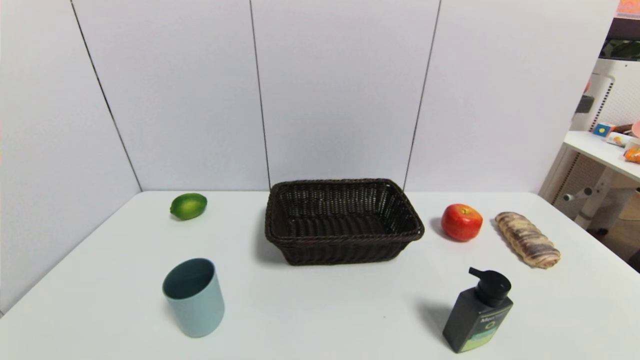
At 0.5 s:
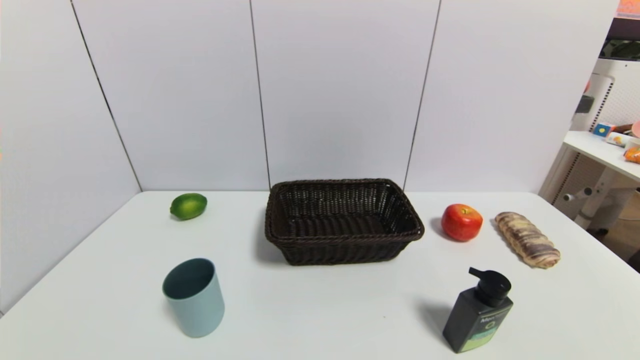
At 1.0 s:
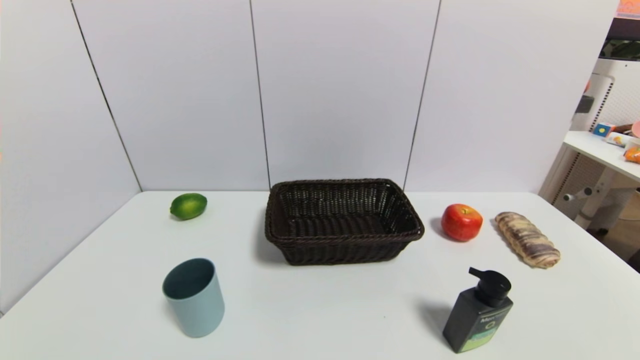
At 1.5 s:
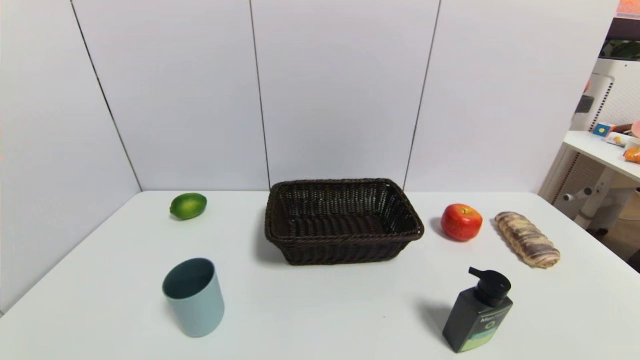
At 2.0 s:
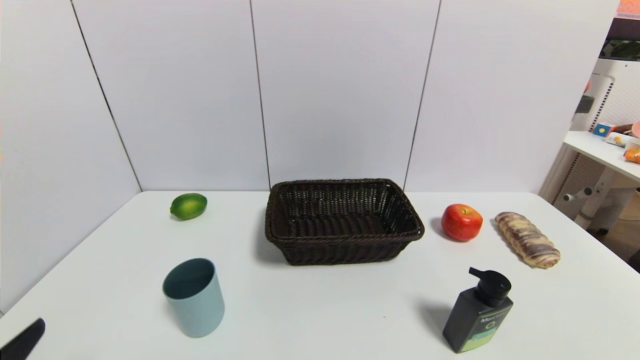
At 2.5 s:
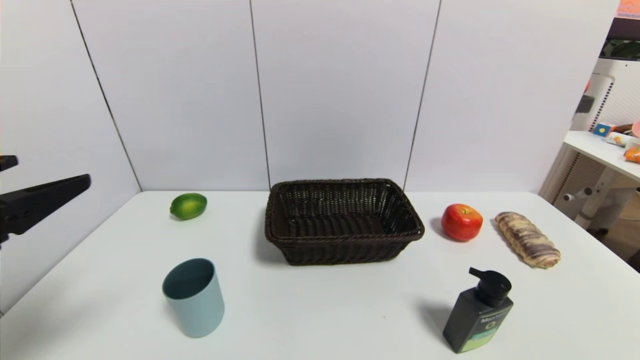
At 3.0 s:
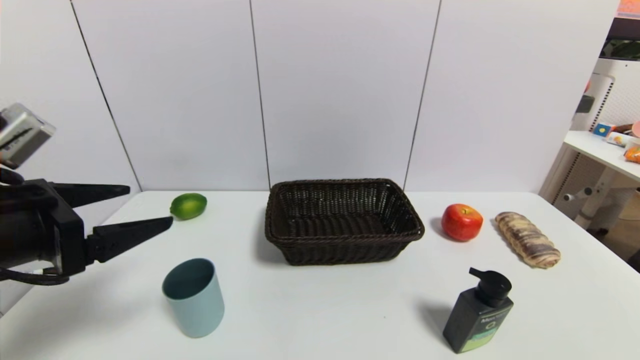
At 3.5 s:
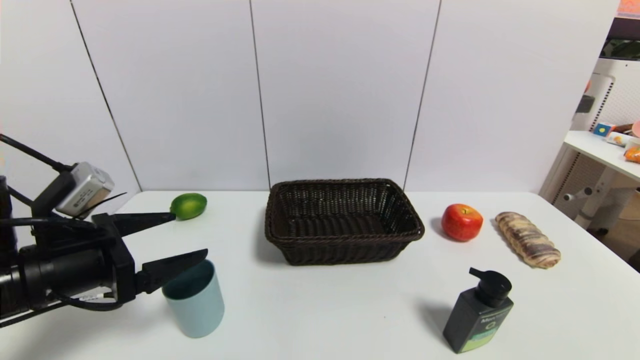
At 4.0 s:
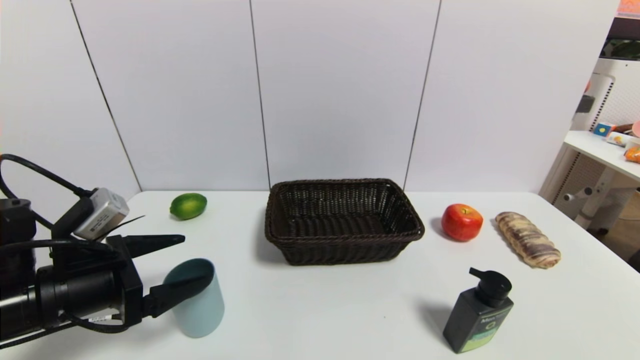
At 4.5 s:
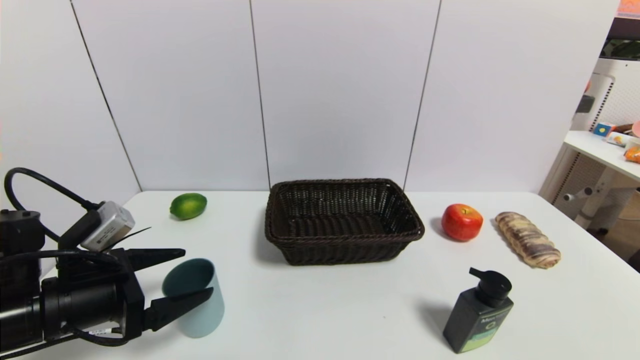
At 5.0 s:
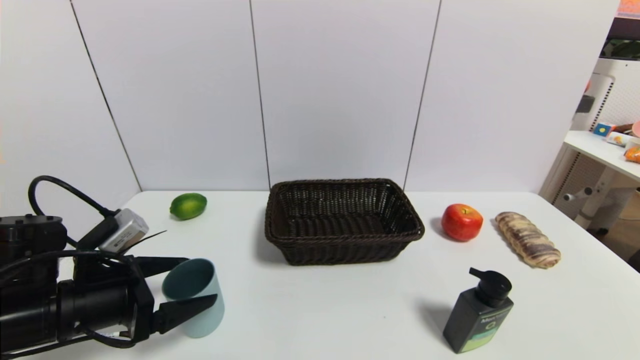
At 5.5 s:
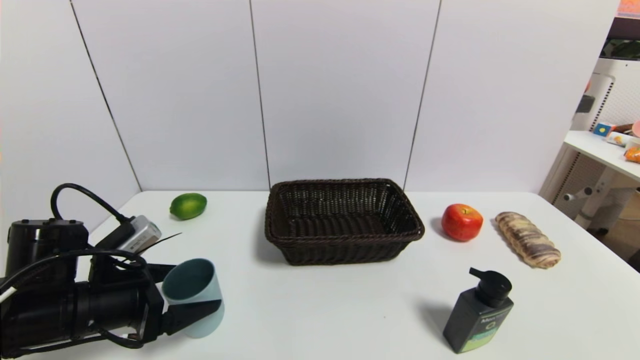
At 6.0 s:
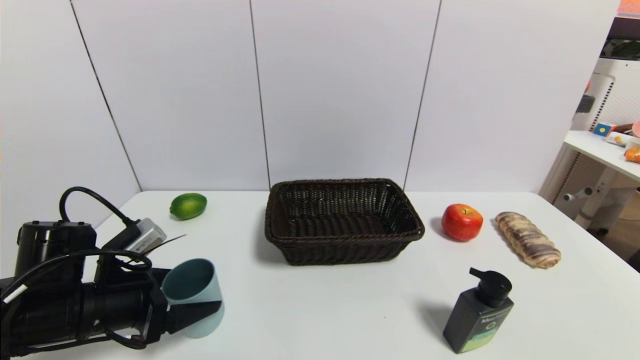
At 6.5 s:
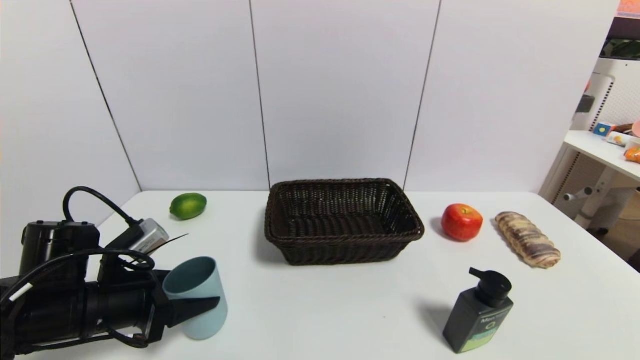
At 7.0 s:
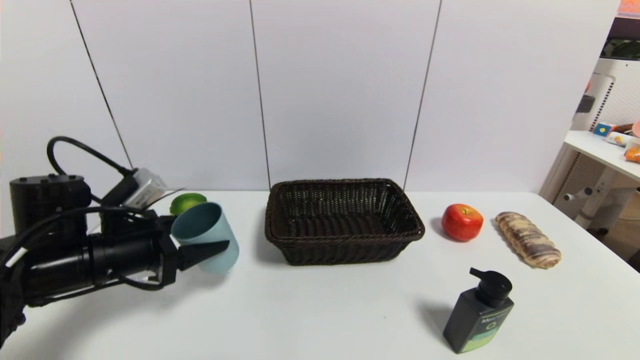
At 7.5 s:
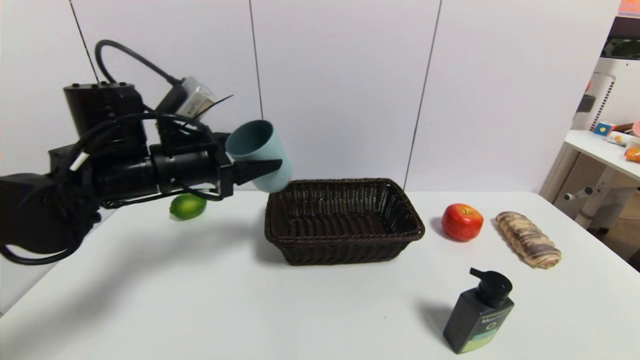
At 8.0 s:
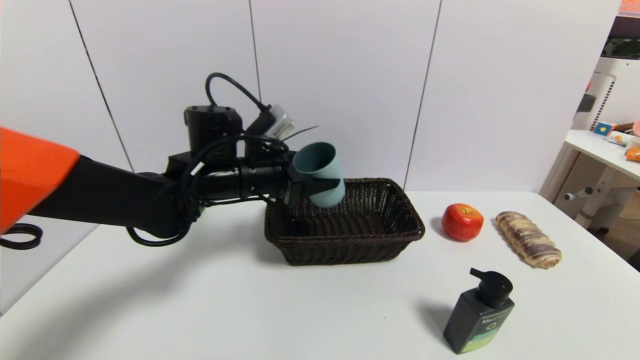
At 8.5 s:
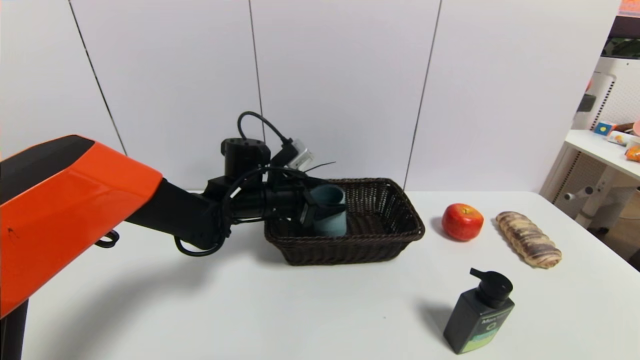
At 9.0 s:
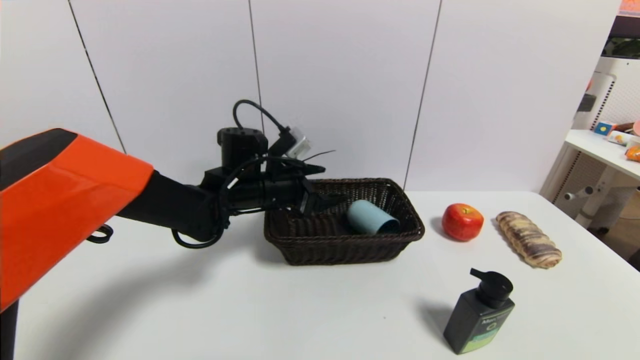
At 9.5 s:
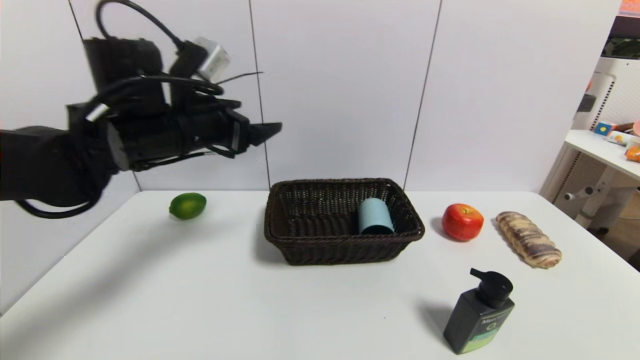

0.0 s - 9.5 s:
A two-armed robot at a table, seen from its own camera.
Task of the whole recording: use a gripper to pick the target object and place on the brown basket.
Step, 0.0 s - 6.0 s: Grasp the blue cup with the left gripper.
Step, 6.5 s - 8.5 s: Place the blue cup into the basket with the left gripper.
2.0 s - 4.0 s: The left gripper goes about 15 cm forward.
4.0 s - 5.5 s: The grippers stay close to where they were, moving slightly.
5.5 s - 7.5 s: The left gripper goes some 20 cm upward, forward and to the right, and closes.
7.5 s - 9.5 s: The left gripper goes downward and returns, roughly 10 cm each way, and opens up.

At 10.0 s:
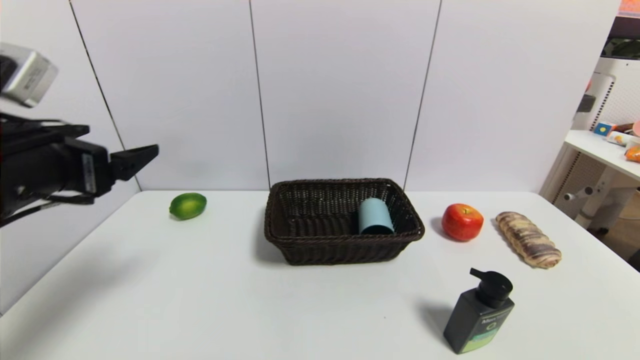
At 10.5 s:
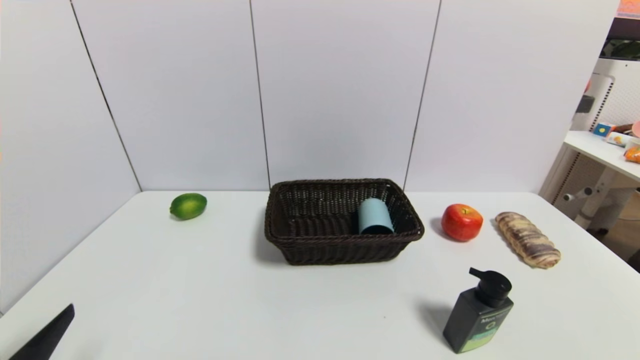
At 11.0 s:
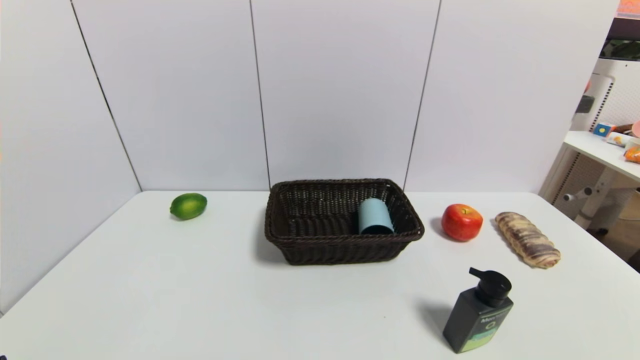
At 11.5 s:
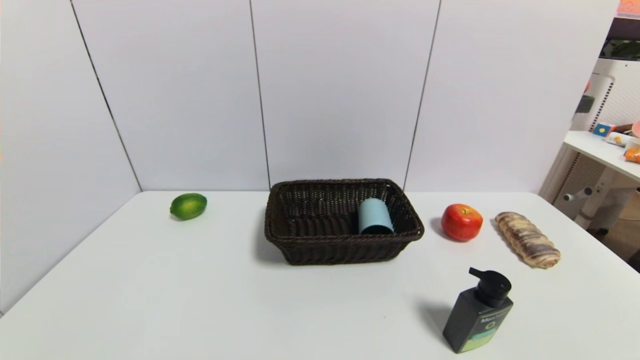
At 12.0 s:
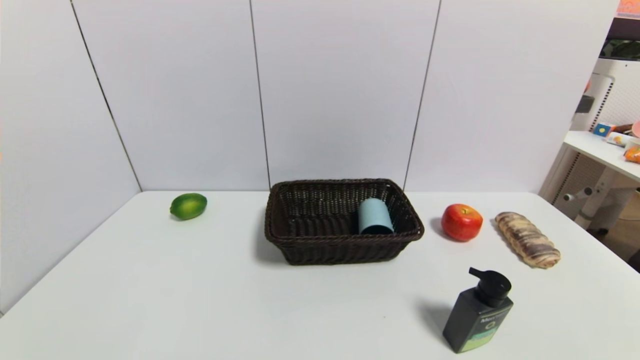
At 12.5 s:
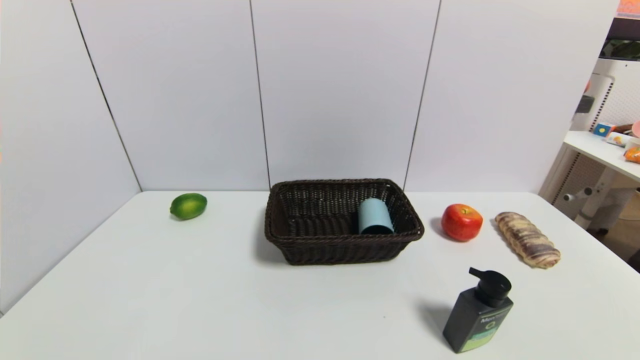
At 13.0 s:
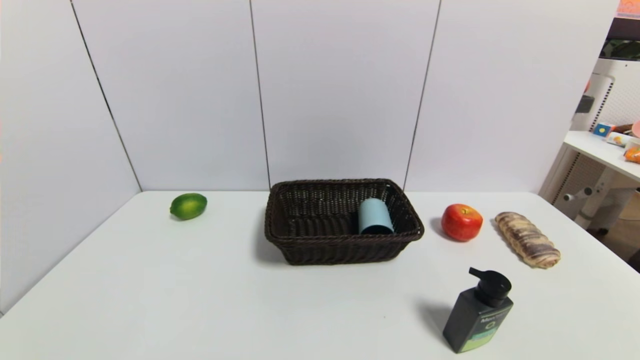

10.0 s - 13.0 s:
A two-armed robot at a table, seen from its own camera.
Task of the whole recording: use a gripper to pick the target object and place on the brown basket.
10.0 s - 11.5 s: The left gripper is displaced downward and backward by about 25 cm.

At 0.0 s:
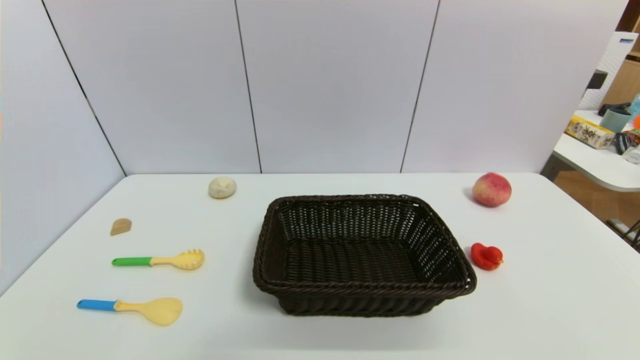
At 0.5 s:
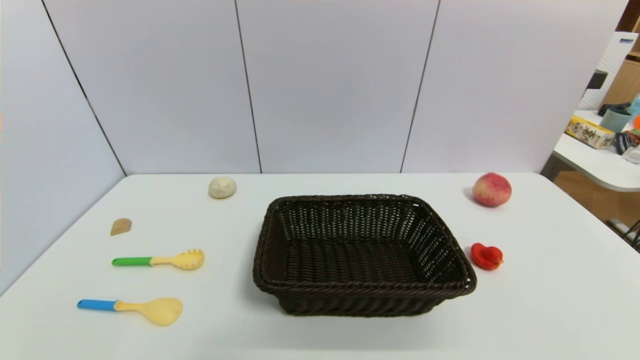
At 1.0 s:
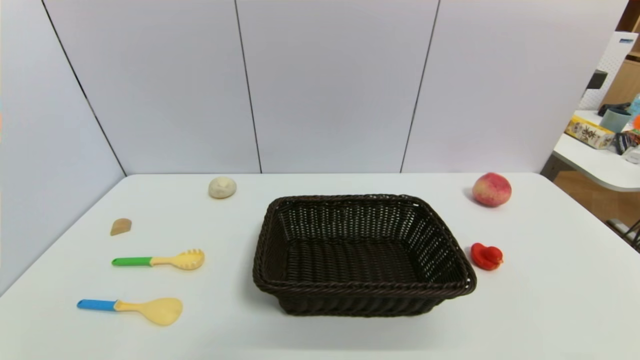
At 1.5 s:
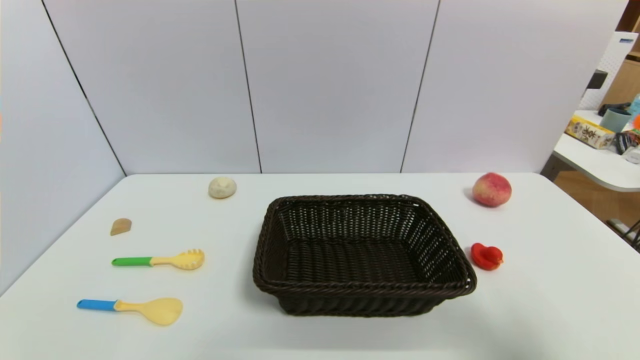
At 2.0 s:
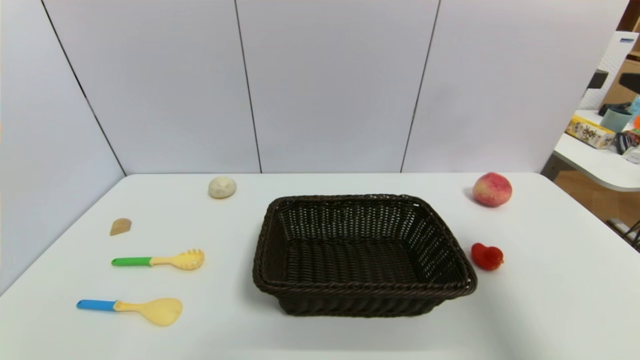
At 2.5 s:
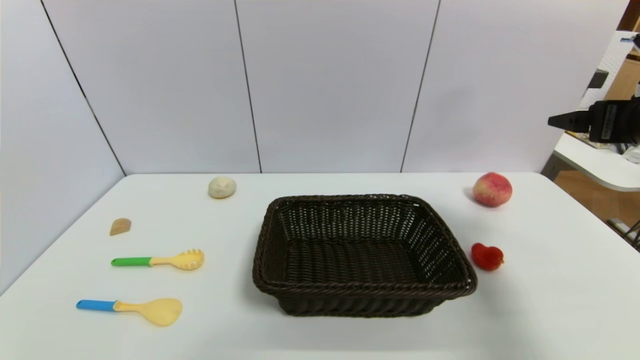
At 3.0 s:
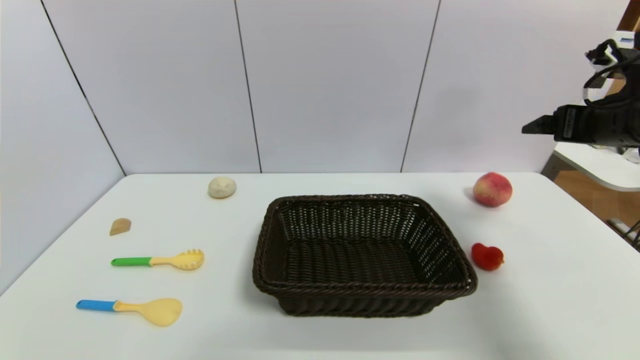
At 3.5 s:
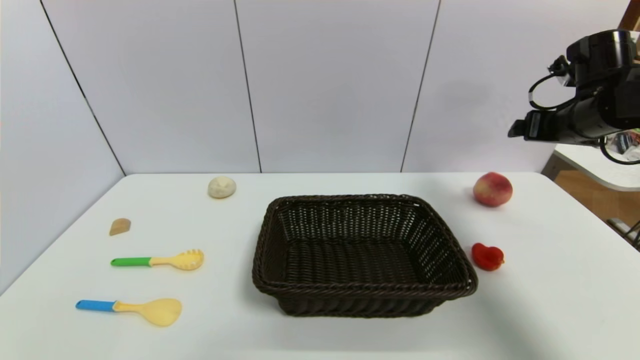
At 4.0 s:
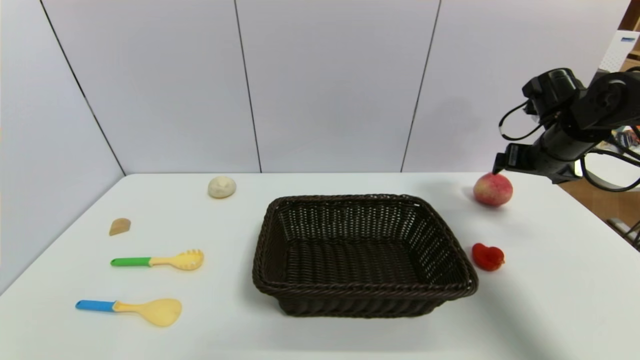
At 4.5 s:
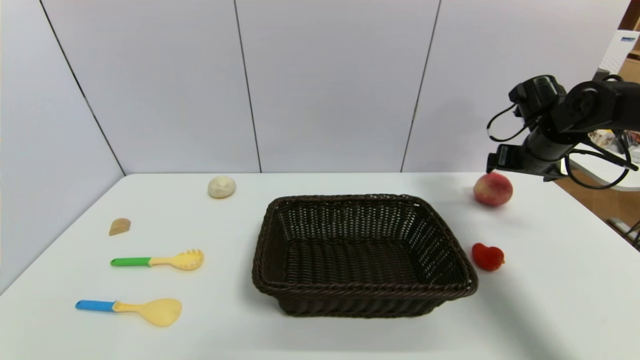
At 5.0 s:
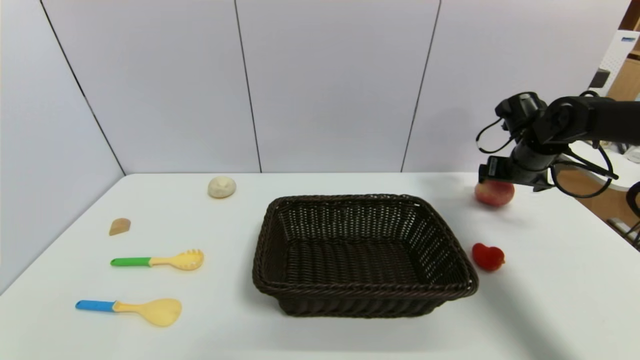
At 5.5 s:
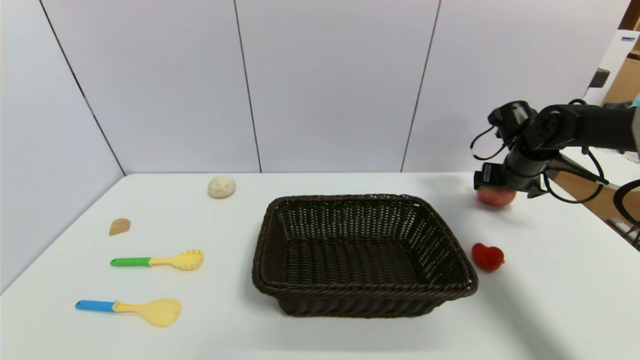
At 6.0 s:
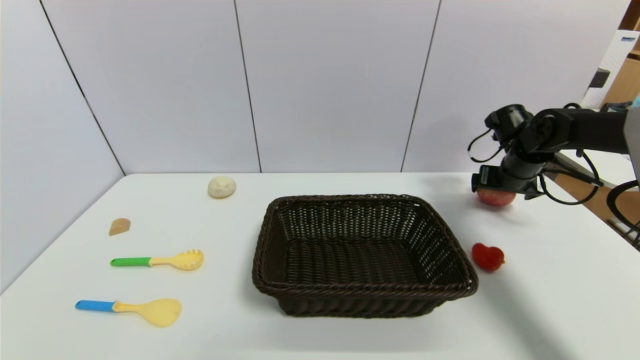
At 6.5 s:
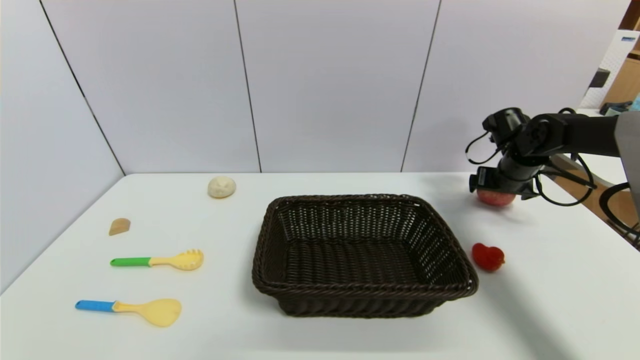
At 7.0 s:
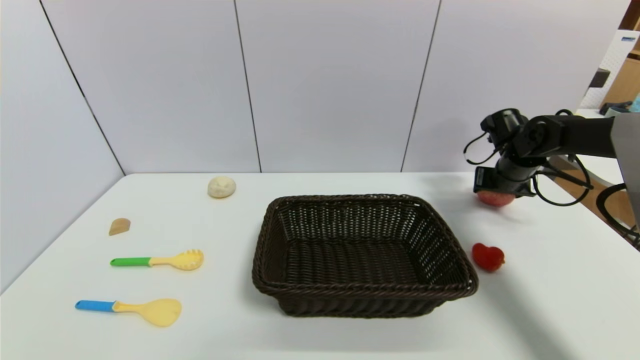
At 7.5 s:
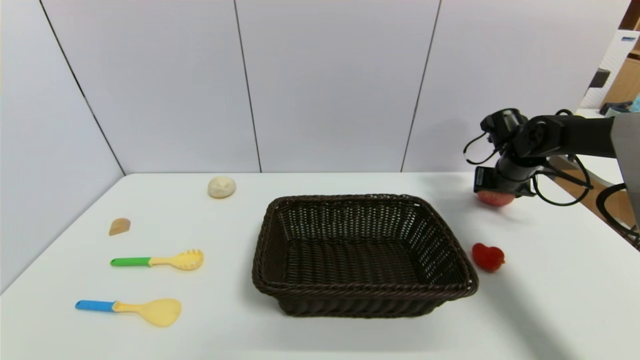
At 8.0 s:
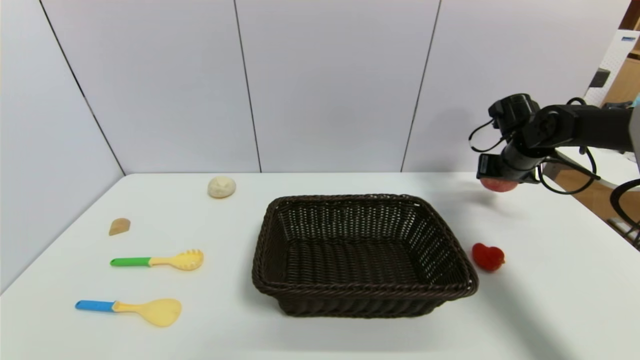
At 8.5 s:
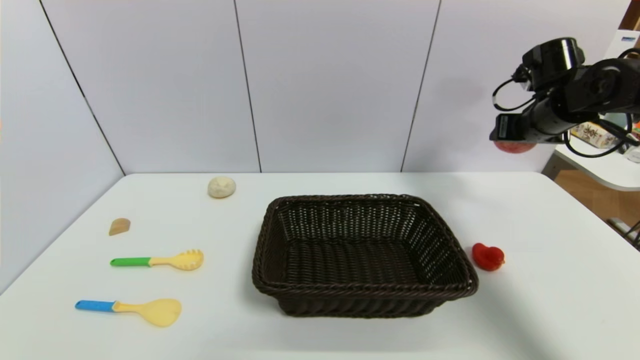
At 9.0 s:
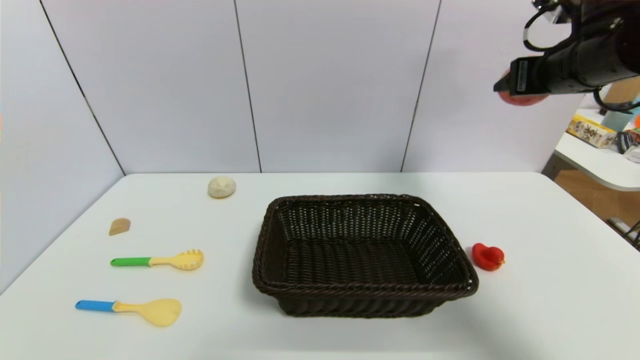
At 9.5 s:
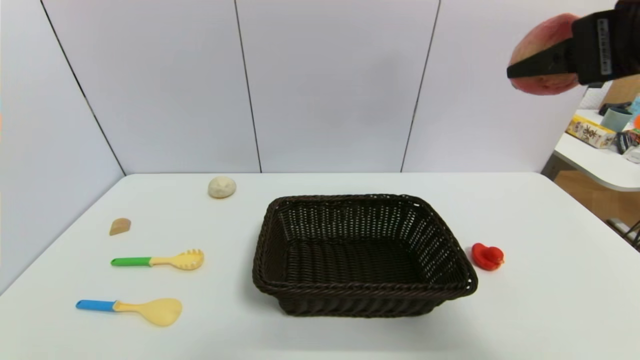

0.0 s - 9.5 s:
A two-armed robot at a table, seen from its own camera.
Task of the whole recording: use a gripper to pick the target object and place on the brown basket.
Step, 0.0 s - 7.0 s: Grasp the peach slice with the right gripper.
0.0 s - 2.0 s: The right gripper goes roughly 30 cm upward and forward.
2.0 s - 4.0 s: The right gripper travels forward and downward by roughly 25 cm.
4.0 s - 5.5 s: The right gripper shifts approximately 5 cm downward.
5.5 s - 7.5 s: The right gripper closes.
7.5 s - 9.5 s: The right gripper goes roughly 35 cm backward, upward and to the left.
